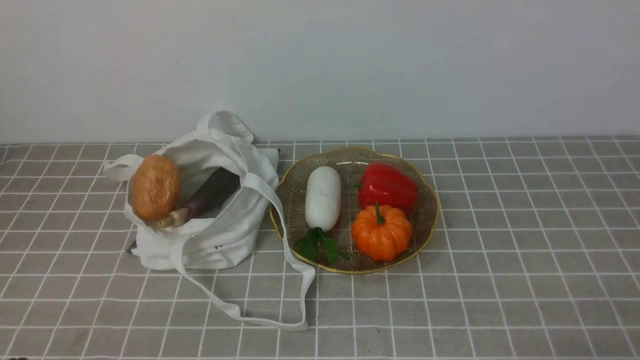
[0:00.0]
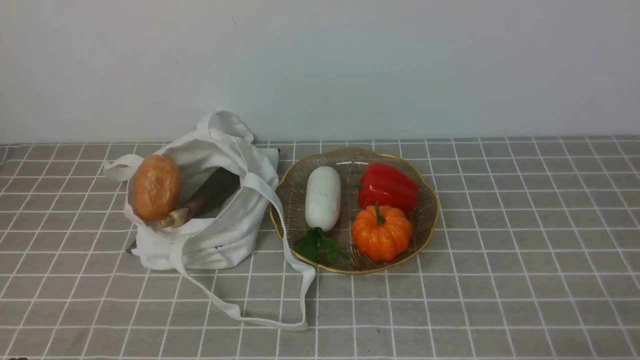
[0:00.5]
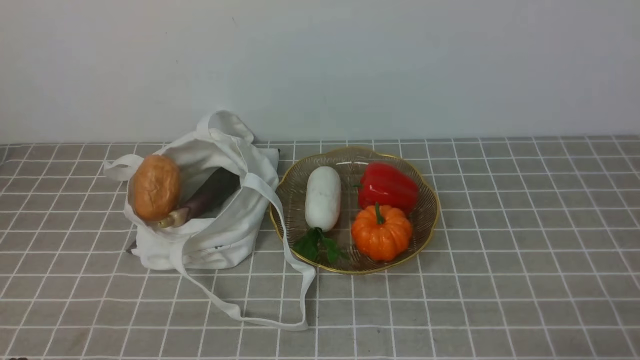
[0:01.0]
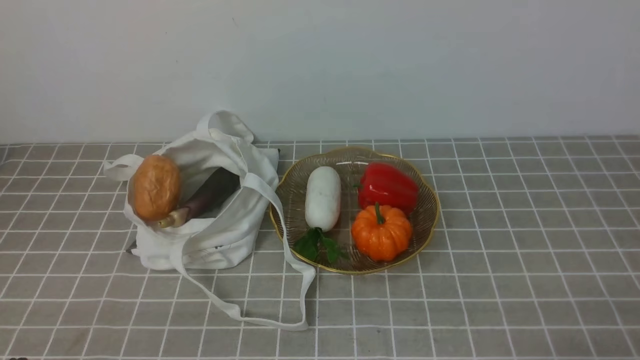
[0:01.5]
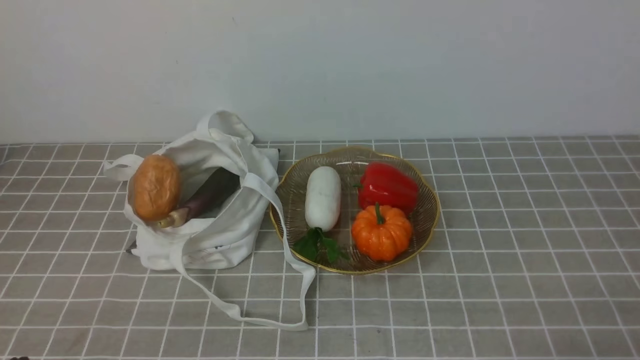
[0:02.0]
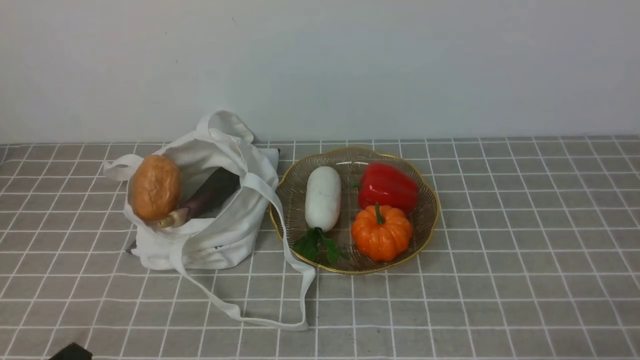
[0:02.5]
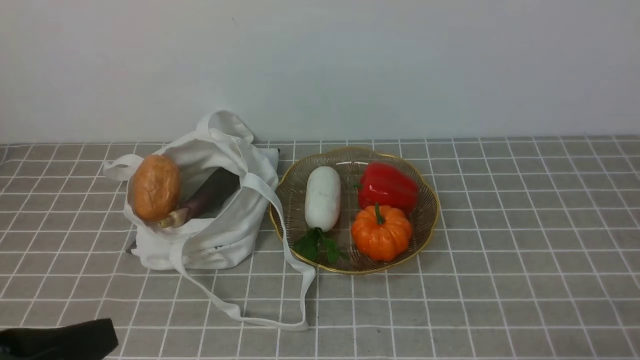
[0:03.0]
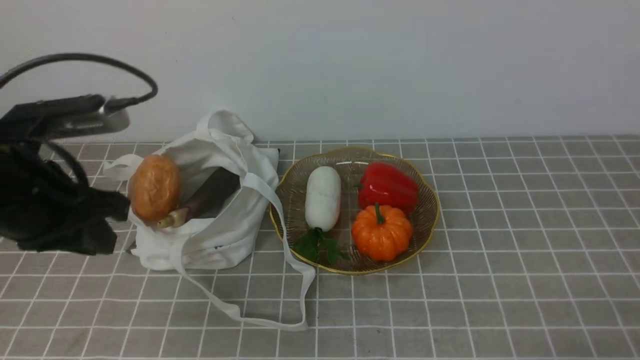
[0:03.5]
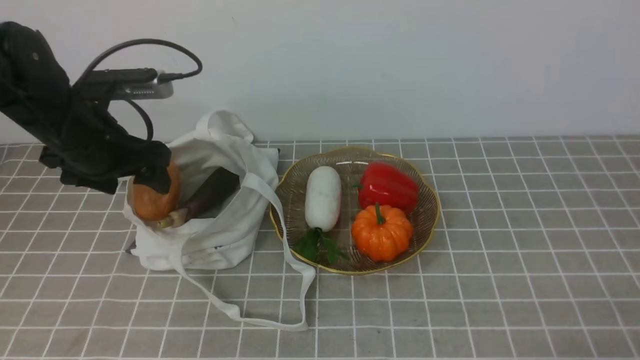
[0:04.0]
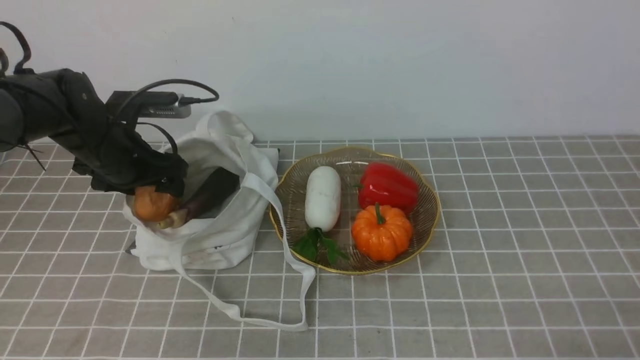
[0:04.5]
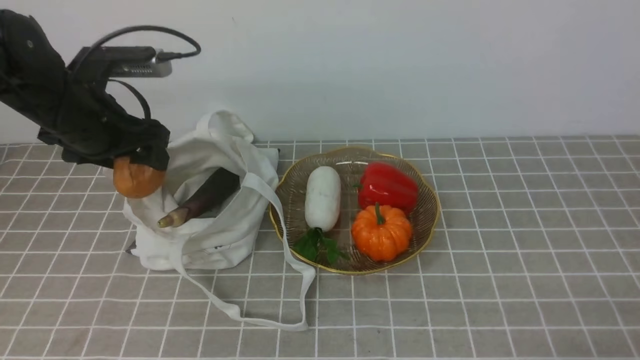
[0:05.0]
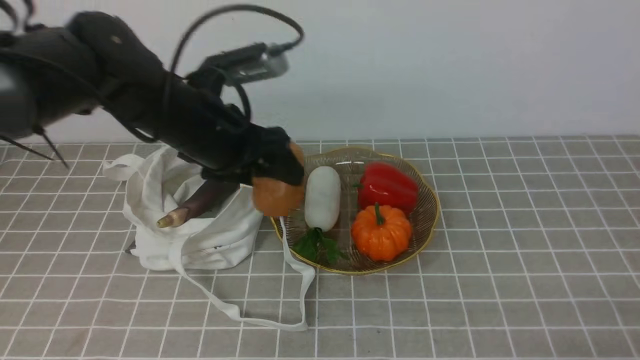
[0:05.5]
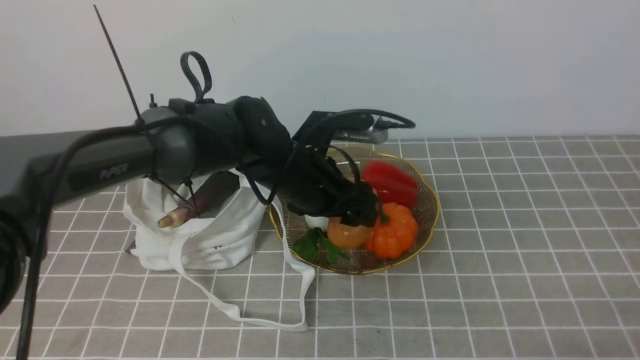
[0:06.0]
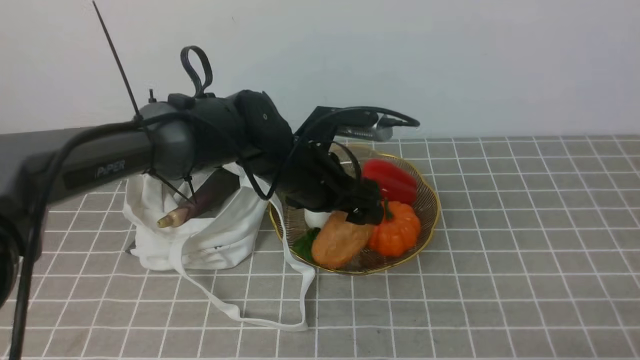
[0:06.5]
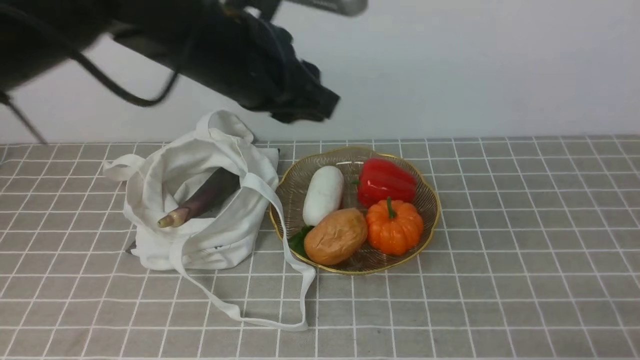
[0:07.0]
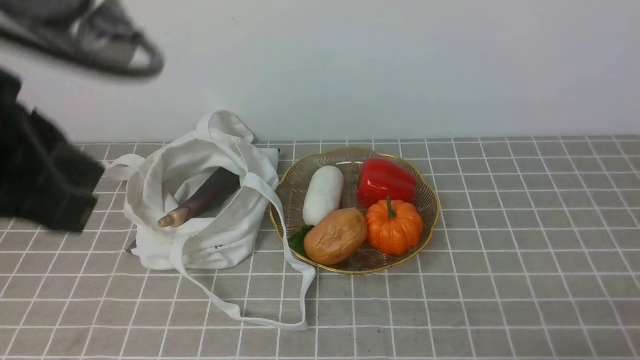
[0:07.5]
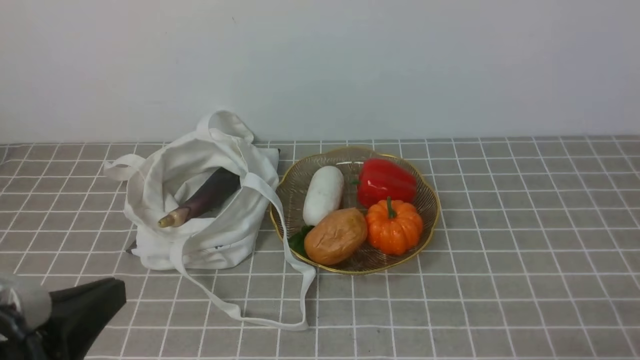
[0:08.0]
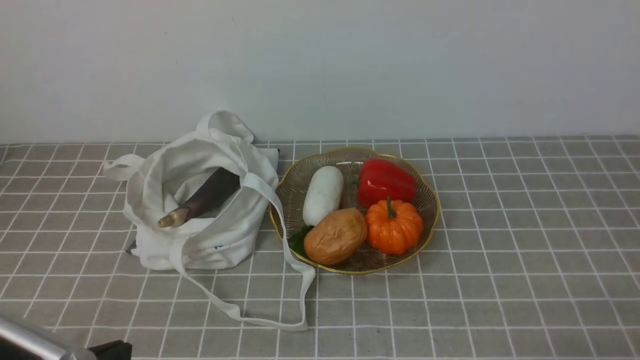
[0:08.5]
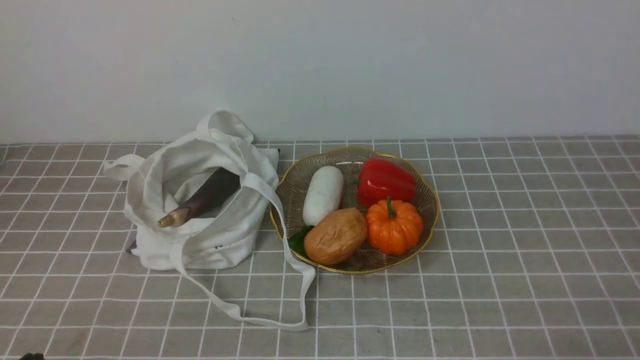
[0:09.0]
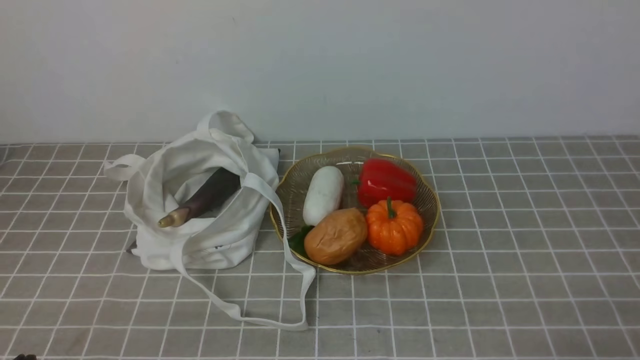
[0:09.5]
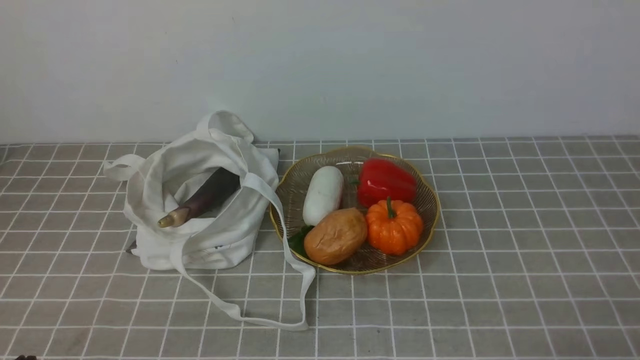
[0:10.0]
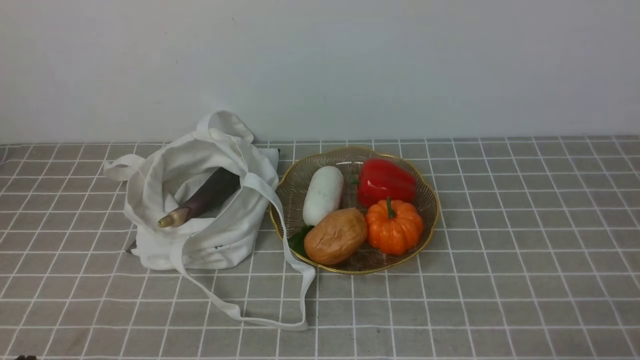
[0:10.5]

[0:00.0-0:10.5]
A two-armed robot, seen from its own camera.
Task of the whole recording: take vegetables from bag on grey coffee tablecloth place on plate.
Step, 0:00.0 to 0:04.5: Grasp the potato with left gripper.
Step, 0:05.0 to 0:06.5: Place the potato on the plate with left gripper.
0:02.0 to 0:04.0: The left gripper heads forward, covering some 30 cm, and opens its fingers.
0:04.0 to 0:06.5: The left gripper travels to the right by roughly 20 cm.
0:06.5 to 0:08.5: The left gripper is displaced backward and to the left by about 35 cm, and closes up.
0:08.5 to 0:10.5: The left gripper goes approximately 5 cm downward.

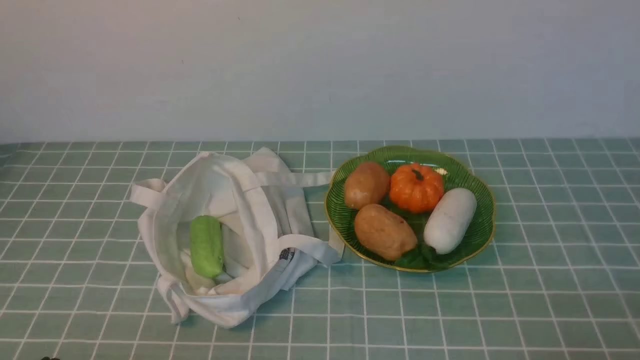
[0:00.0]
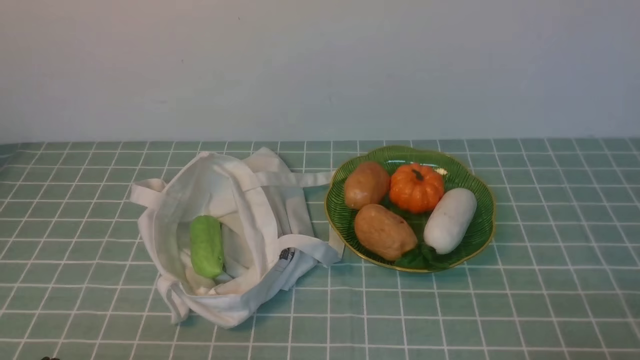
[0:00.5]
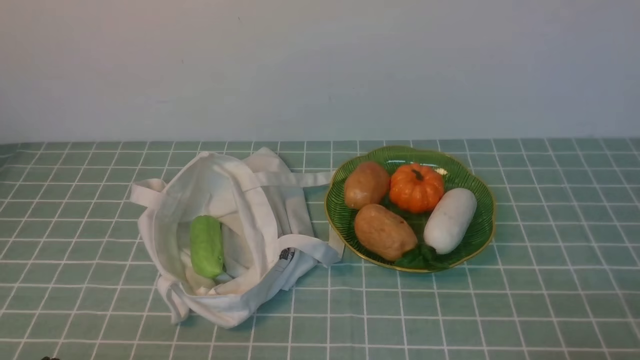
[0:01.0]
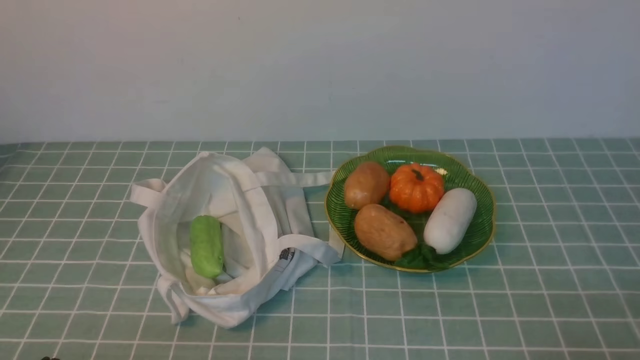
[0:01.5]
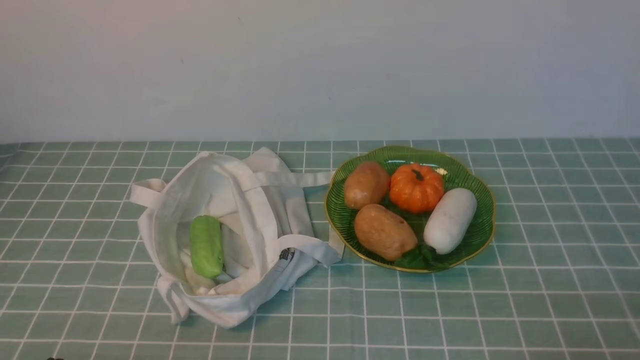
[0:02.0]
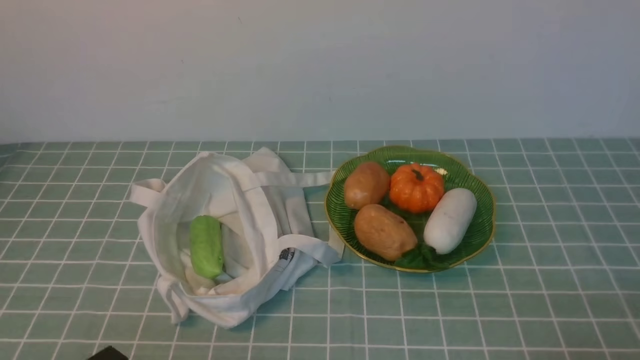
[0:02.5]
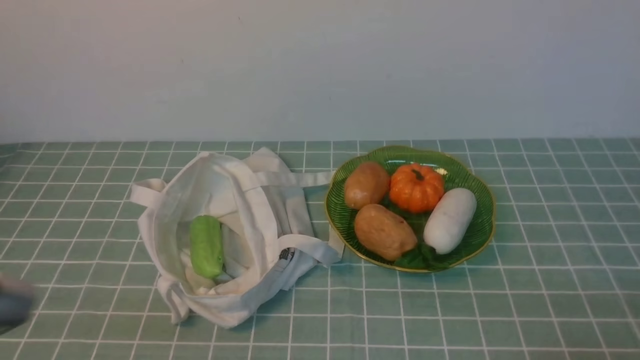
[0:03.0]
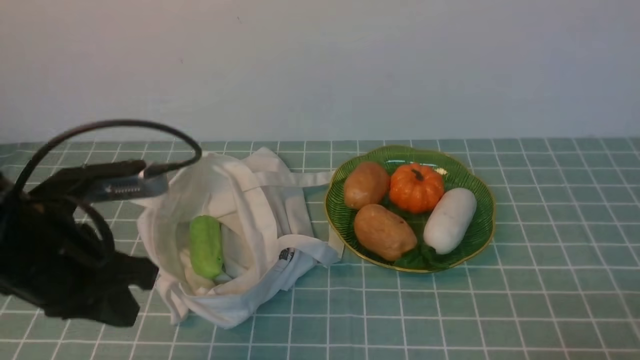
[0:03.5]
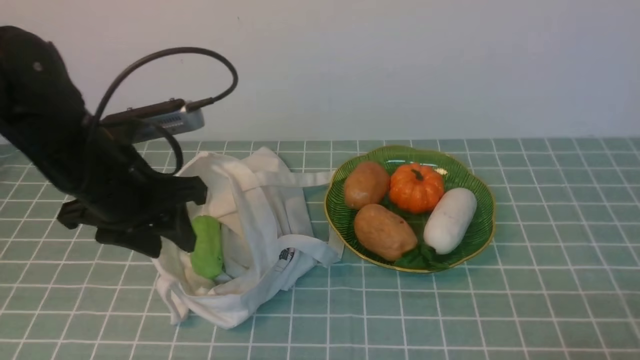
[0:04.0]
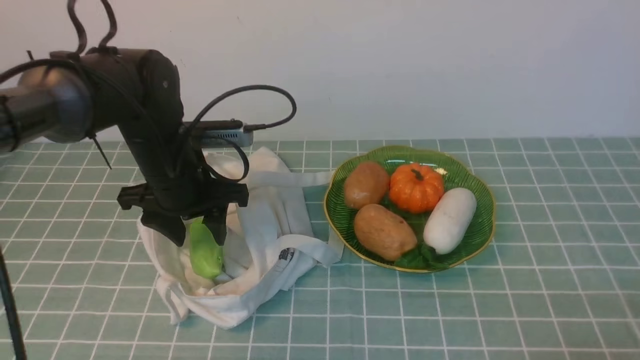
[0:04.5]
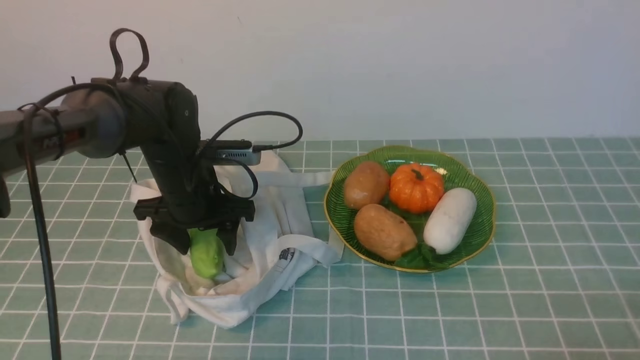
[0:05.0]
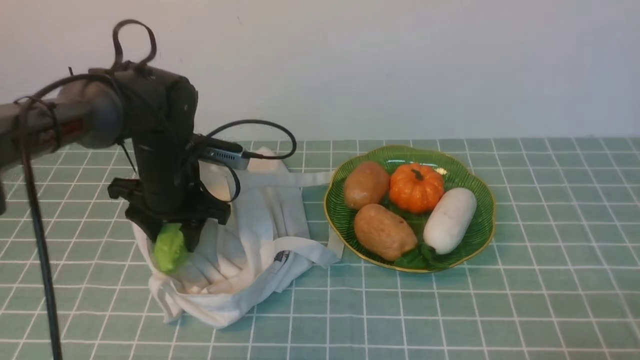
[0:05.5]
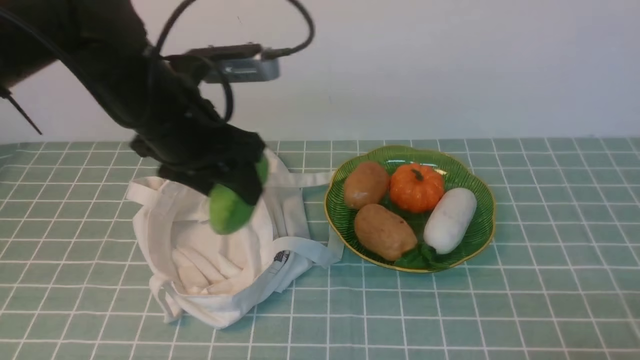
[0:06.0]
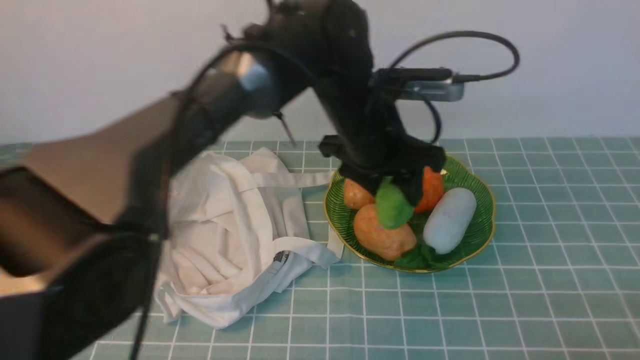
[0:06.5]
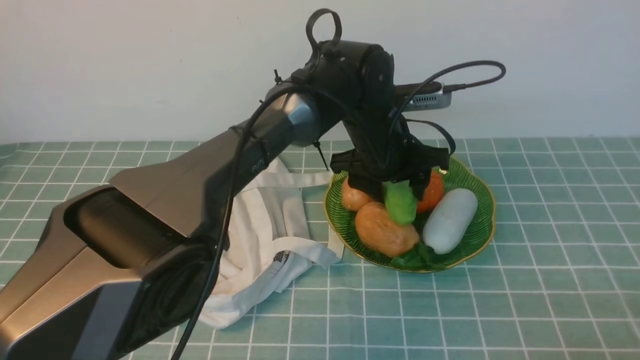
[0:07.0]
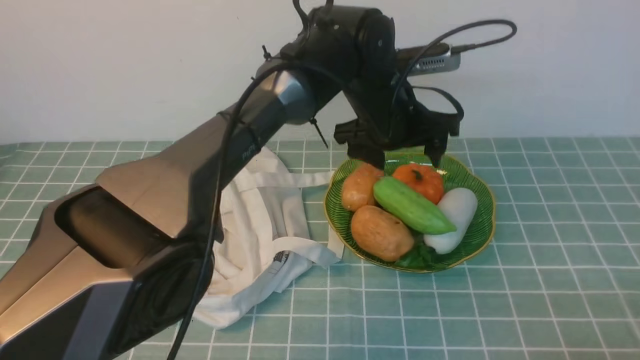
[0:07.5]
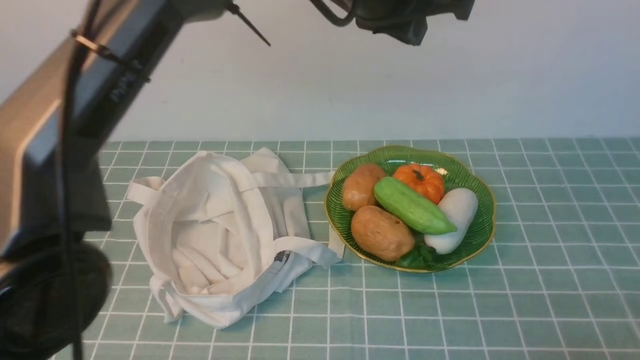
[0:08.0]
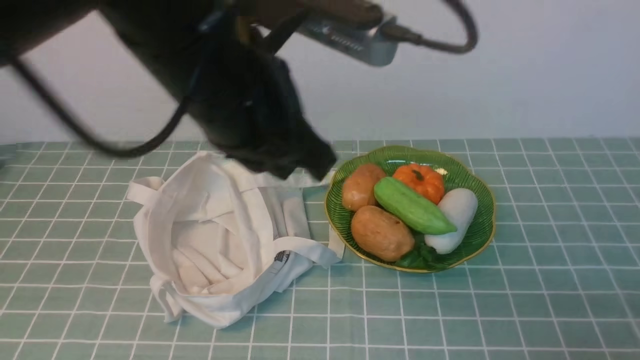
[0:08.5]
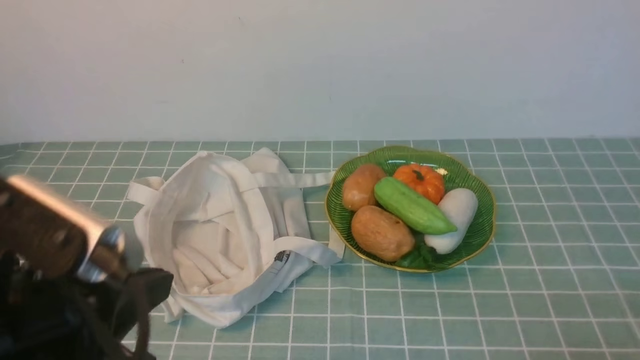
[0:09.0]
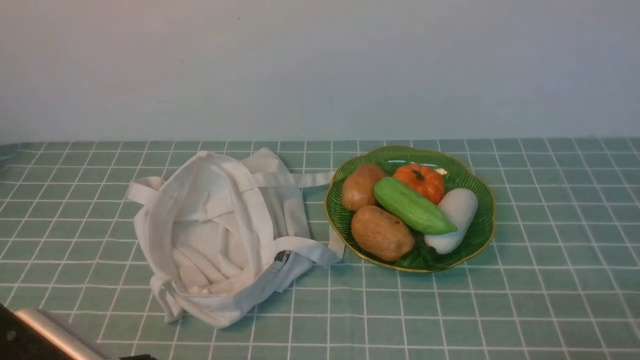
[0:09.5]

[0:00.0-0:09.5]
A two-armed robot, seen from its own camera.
Task of the whole recording: take vegetables from cloth bag on blue coffee tablecloth place on plate.
Step, 0:00.0 to 0:05.0: Grasp the bitter melon with left gripper.
Step, 0:05.5 to 0:07.0: Place the bitter melon on the plate with left gripper.
0:02.0 to 0:04.0: The left gripper is displaced forward and upward by about 25 cm, and opens up.
0:04.0 to 0:05.5: The left gripper shifts approximately 15 cm forward and downward.
0:05.5 to 0:07.5: The left gripper heads to the right, covering roughly 25 cm.
0:07.5 to 0:09.5: The left gripper moves backward and to the left, some 40 cm, and closes up.
